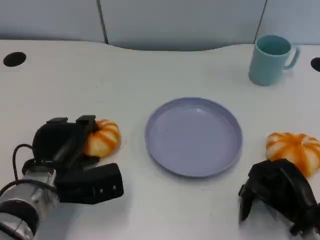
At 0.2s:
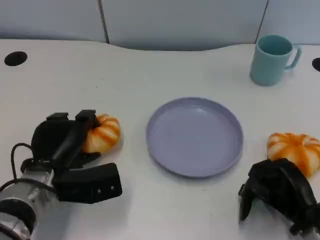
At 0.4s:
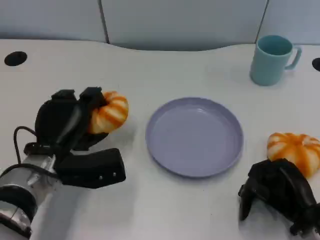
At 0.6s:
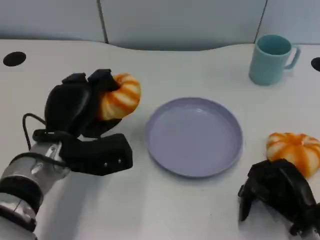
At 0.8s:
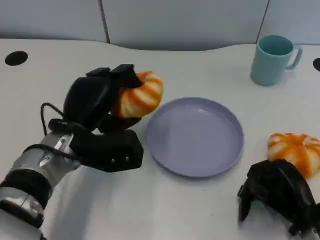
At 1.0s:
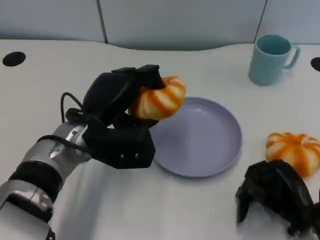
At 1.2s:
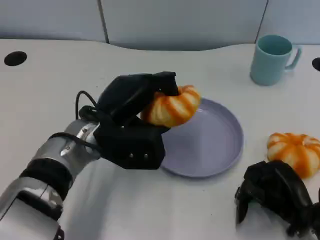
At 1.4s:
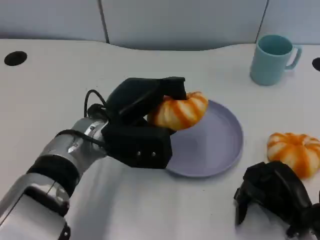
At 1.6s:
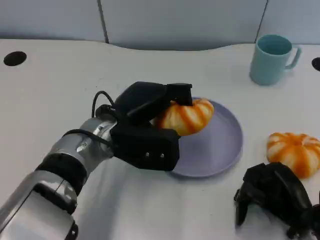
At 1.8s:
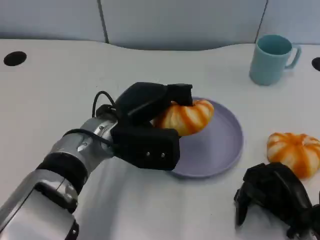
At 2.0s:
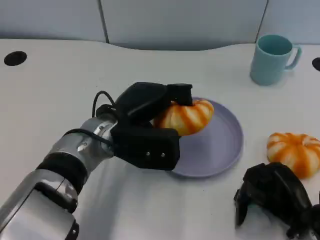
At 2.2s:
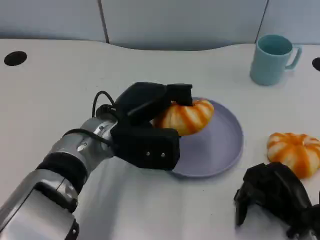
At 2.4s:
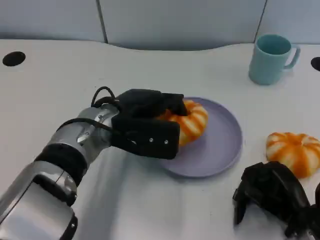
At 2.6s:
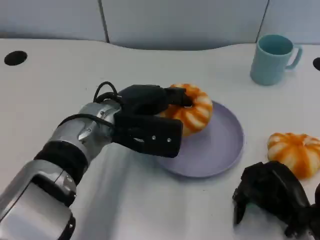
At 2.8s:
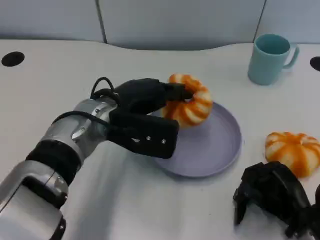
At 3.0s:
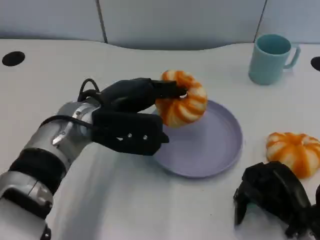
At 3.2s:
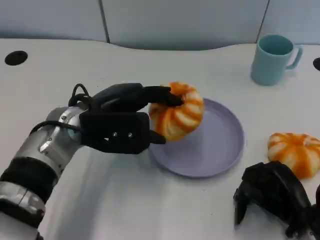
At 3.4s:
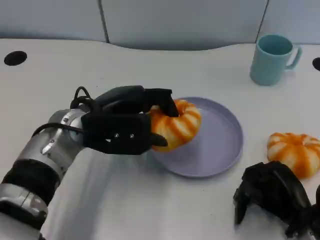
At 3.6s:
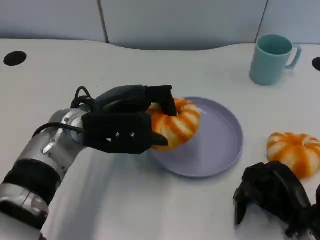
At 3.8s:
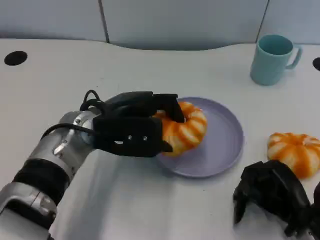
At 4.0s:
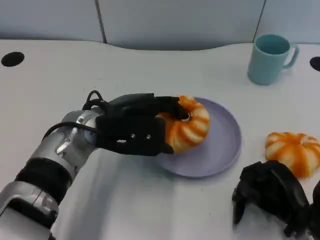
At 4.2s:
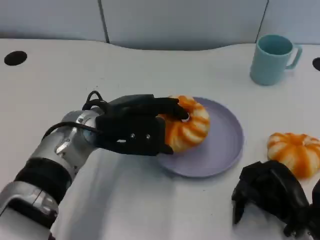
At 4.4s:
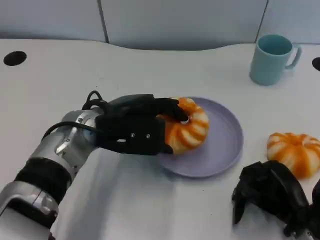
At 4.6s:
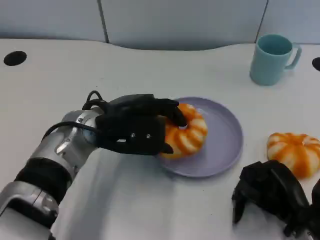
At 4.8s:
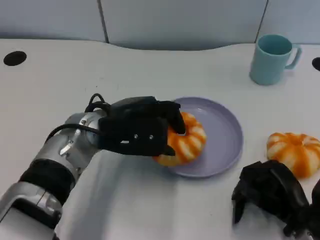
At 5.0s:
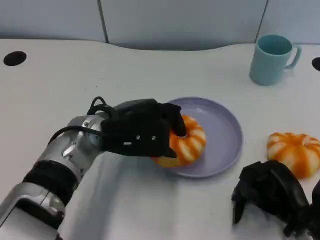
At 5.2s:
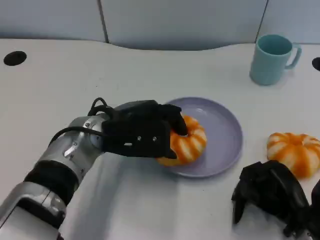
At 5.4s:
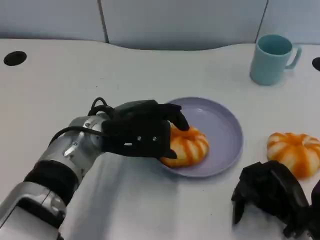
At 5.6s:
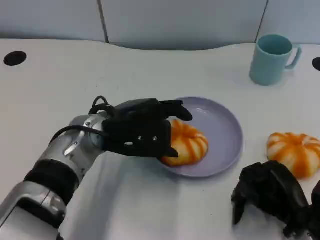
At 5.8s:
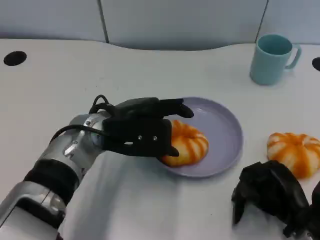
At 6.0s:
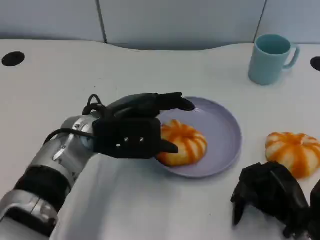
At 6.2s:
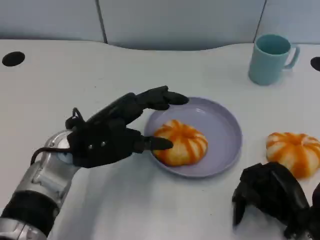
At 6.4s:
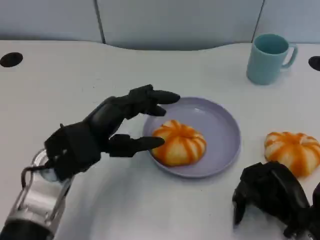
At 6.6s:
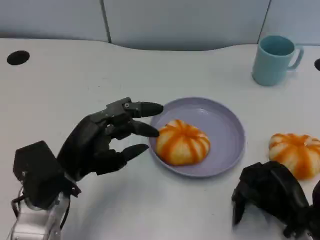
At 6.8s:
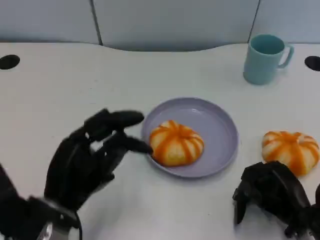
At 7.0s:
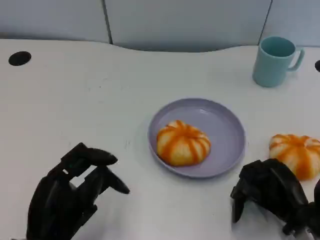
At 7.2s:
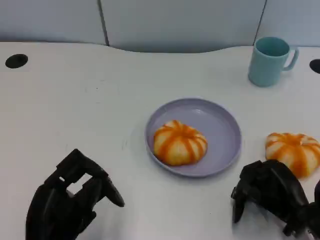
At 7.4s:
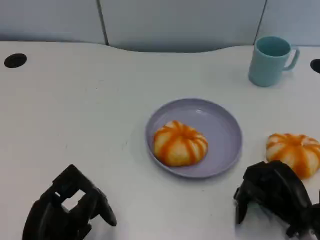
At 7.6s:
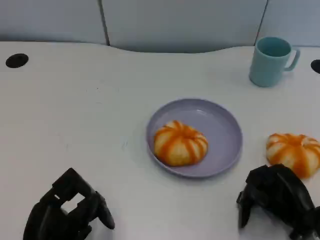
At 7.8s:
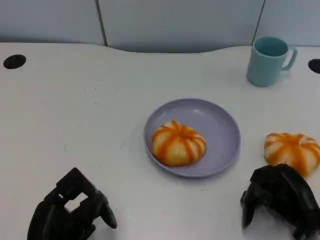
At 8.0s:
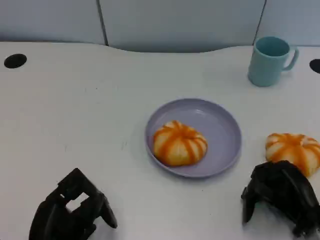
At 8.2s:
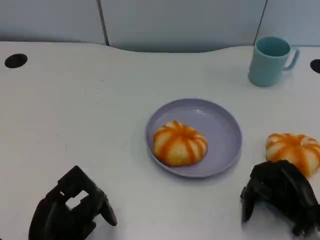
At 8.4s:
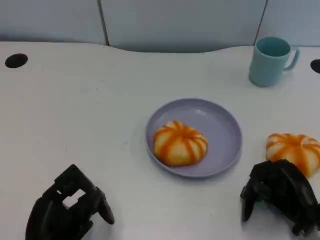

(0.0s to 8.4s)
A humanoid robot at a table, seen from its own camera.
Task of the whole recording: Grasp the bread from the table and place it into the plate.
0.0s - 1.4s: The left hand heads to the right and upward, covering approximately 10 cm.
2.8s - 4.2s: The hands move only a little.
4.2s - 5.6s: The two hands keep their place.
5.6s - 7.0s: The left hand is displaced backward and to the left by some 20 cm.
7.0s - 8.4s: The hands make only small movements.

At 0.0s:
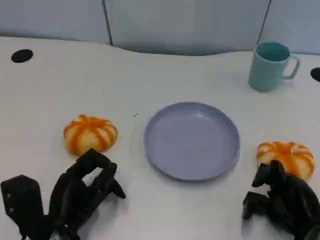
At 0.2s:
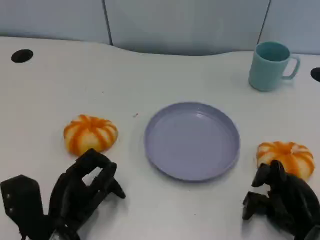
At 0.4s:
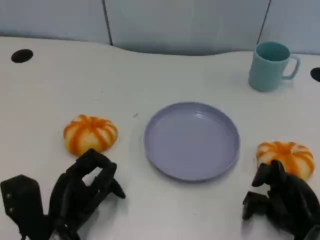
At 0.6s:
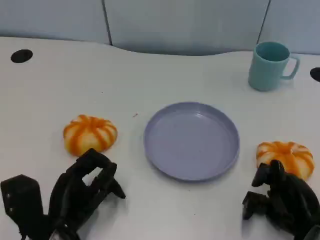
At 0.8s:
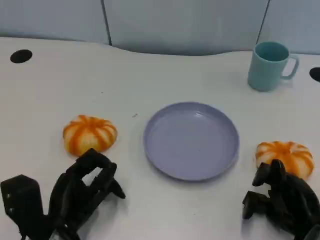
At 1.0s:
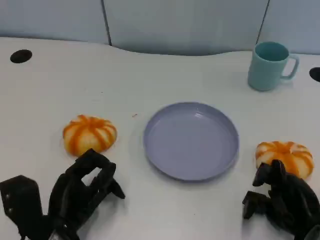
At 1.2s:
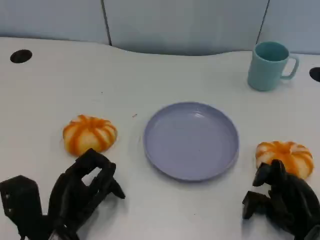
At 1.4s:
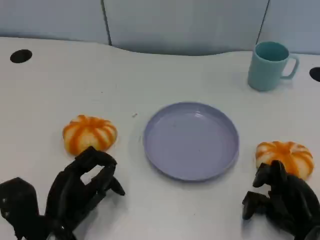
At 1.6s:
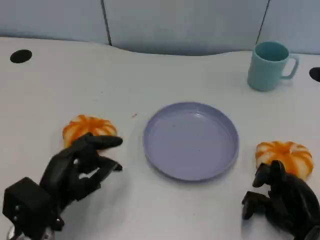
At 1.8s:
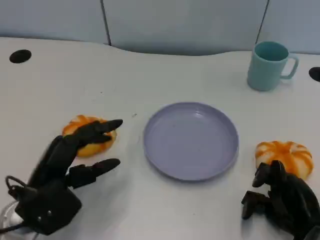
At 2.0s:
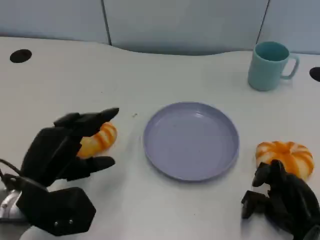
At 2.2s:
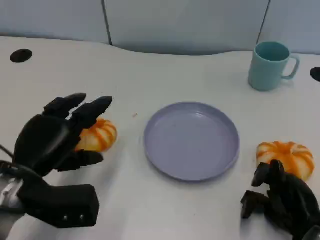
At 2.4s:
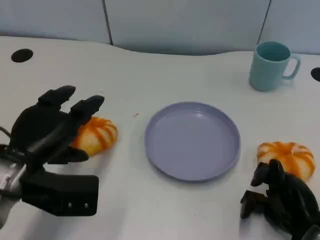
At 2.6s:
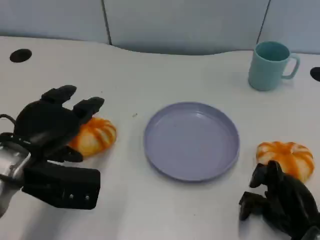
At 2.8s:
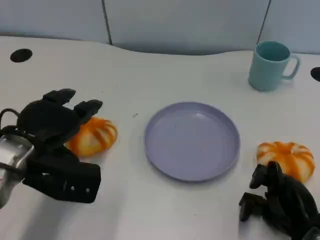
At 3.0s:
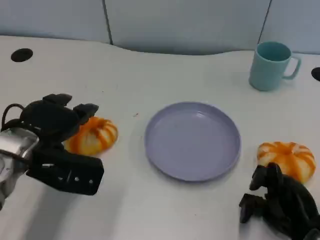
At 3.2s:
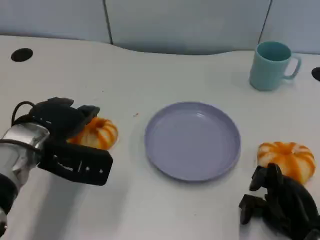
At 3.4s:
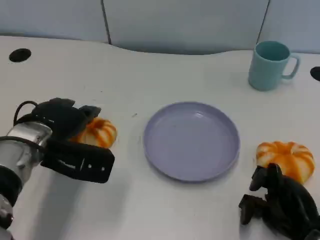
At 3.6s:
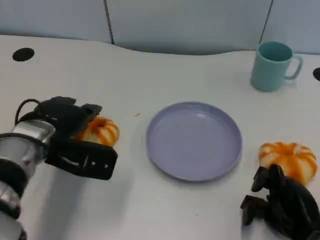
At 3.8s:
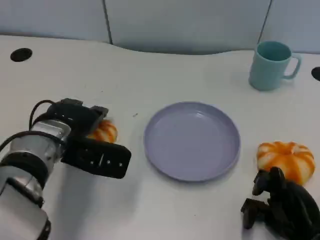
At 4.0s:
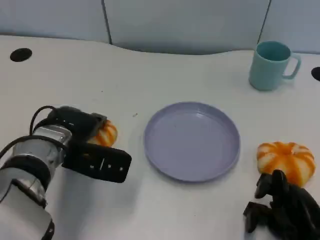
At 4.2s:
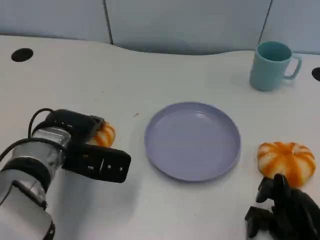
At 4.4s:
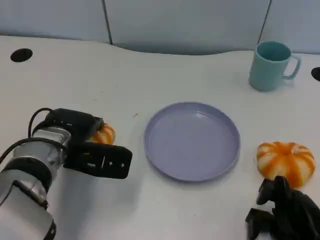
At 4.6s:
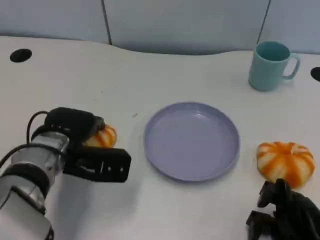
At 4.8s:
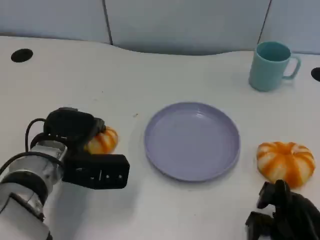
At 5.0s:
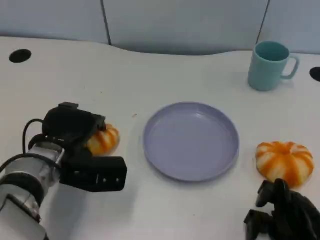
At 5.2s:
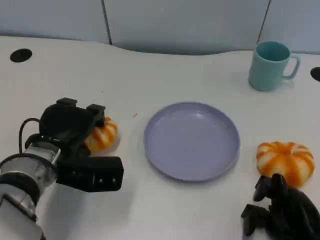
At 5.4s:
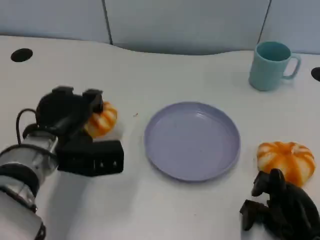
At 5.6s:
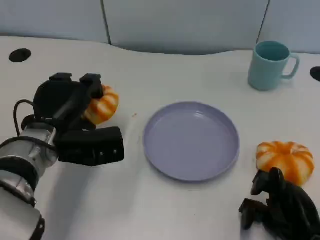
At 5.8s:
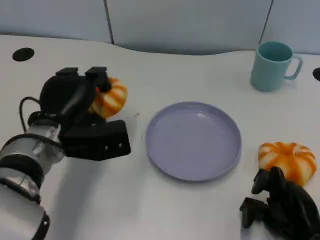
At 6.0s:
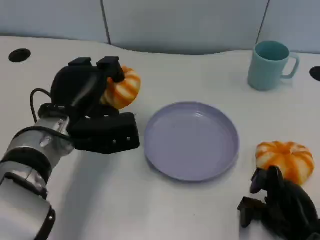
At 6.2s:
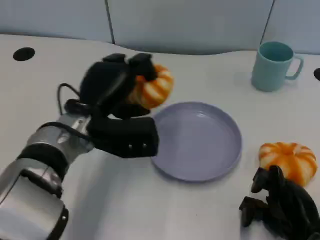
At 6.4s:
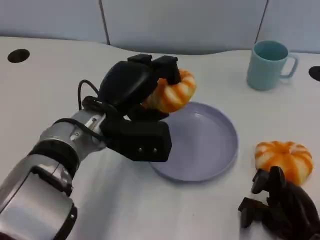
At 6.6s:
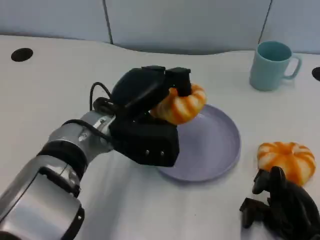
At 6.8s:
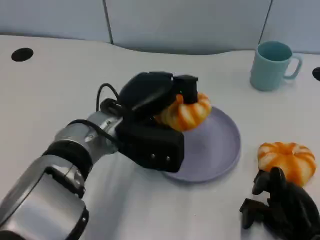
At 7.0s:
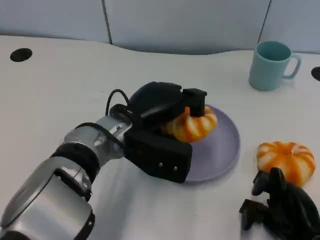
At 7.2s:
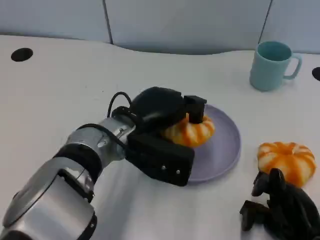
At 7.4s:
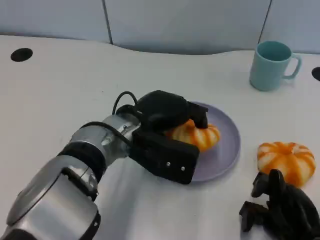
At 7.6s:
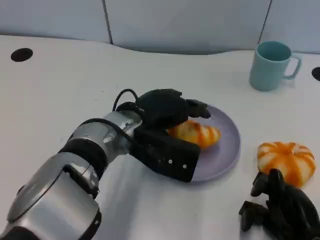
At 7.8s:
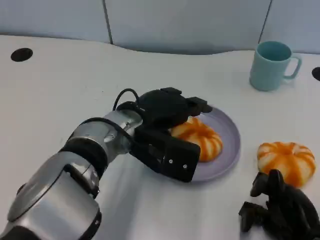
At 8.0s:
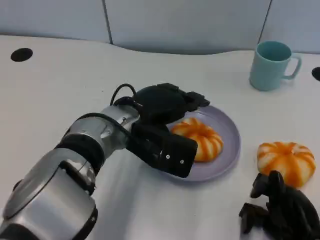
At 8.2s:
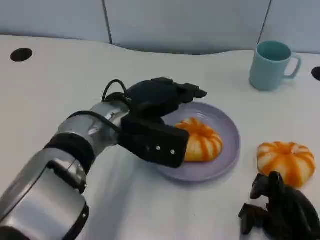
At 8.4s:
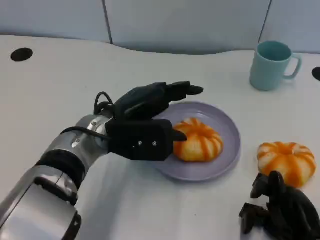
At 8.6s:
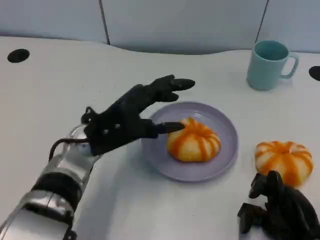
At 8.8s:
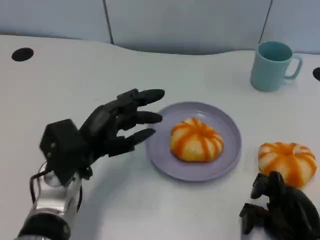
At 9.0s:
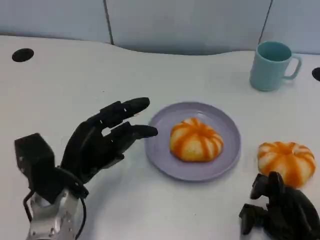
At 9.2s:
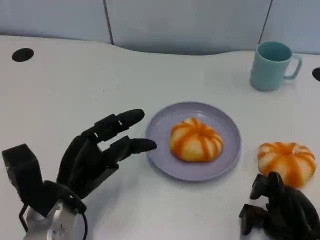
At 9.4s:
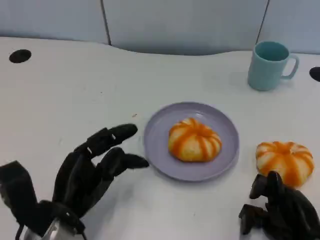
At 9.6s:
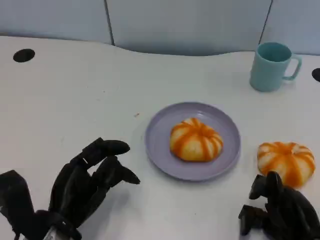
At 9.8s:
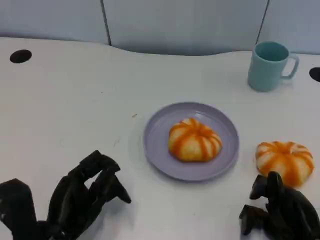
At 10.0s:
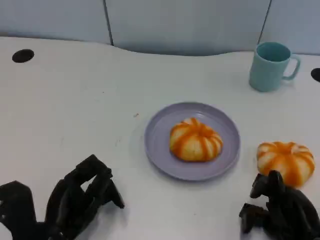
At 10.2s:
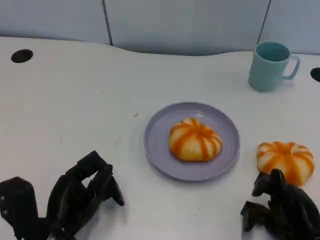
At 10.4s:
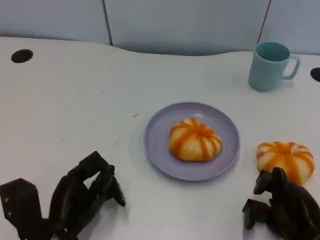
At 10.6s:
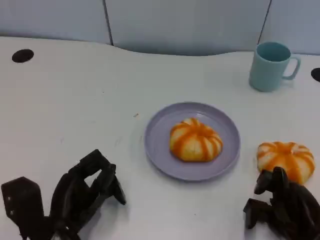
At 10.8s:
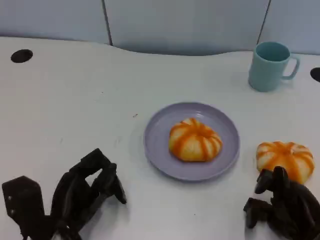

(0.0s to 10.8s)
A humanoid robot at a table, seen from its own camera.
Task of the whole recording: Grasp the bread from the table and place it into the plate.
1.6s - 3.0s: The left hand goes about 10 cm forward and upward.
3.0s - 4.6s: The left hand shifts by approximately 5 cm.
4.6s - 6.2s: The left hand heads to the right, covering about 5 cm.
6.2s - 7.8s: The left hand heads to the right, covering about 5 cm.
7.8s - 9.2s: The left hand goes roughly 15 cm to the left, backward and downward.
9.2s - 10.8s: The left hand ends up roughly 5 cm from where it was.

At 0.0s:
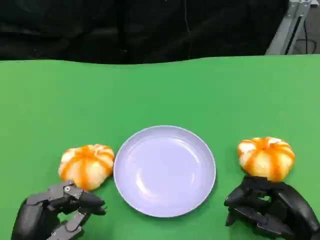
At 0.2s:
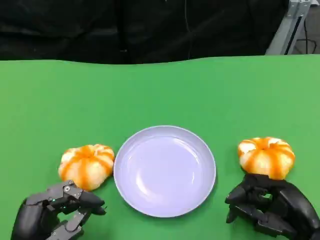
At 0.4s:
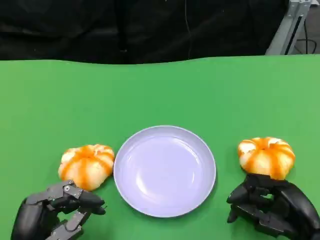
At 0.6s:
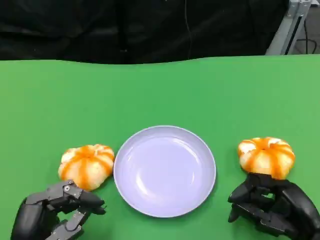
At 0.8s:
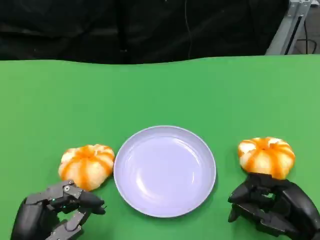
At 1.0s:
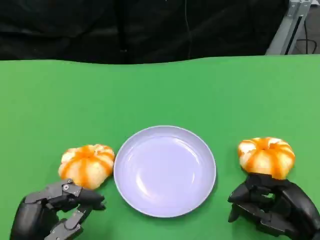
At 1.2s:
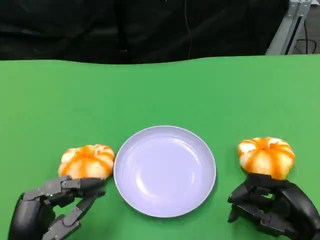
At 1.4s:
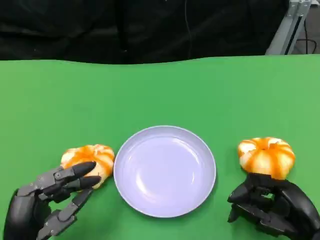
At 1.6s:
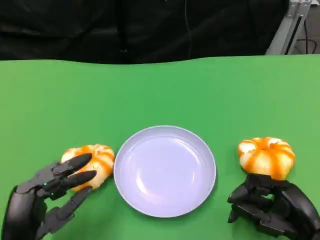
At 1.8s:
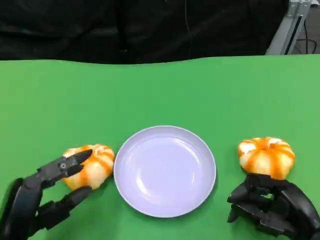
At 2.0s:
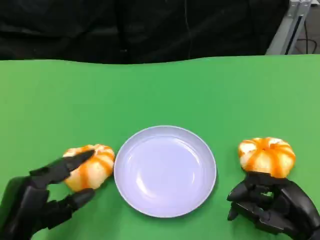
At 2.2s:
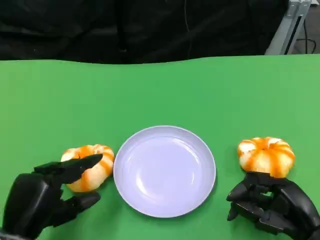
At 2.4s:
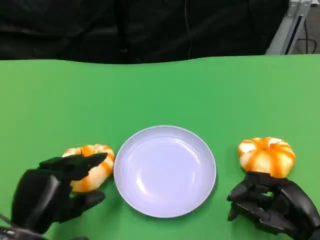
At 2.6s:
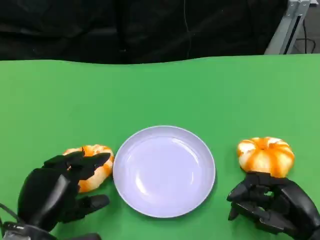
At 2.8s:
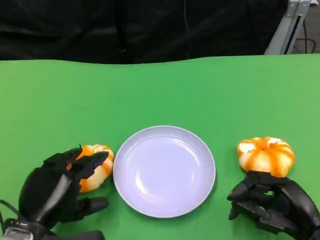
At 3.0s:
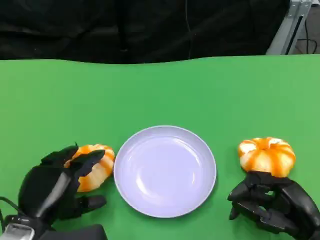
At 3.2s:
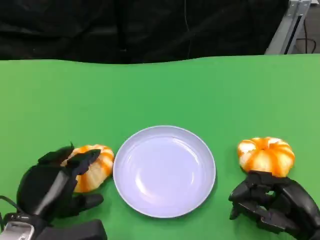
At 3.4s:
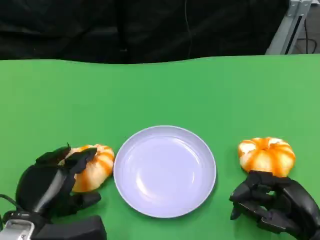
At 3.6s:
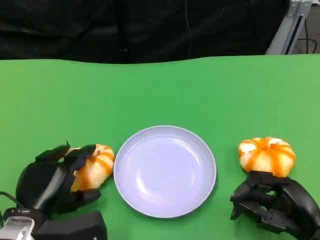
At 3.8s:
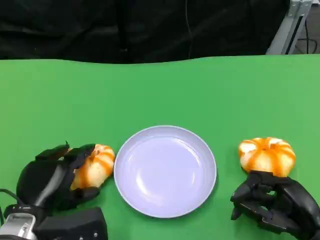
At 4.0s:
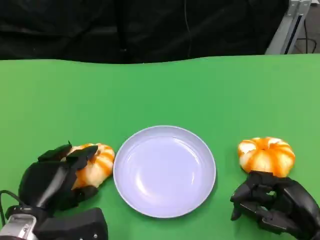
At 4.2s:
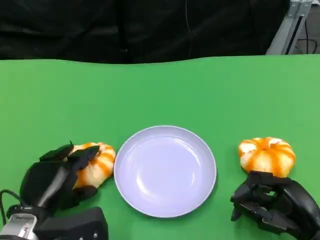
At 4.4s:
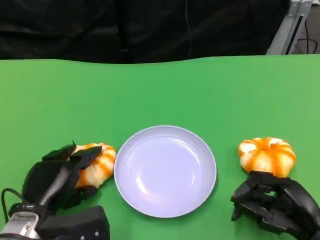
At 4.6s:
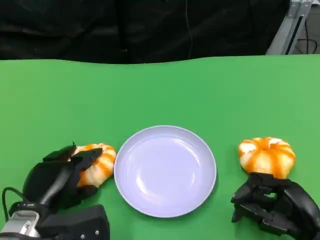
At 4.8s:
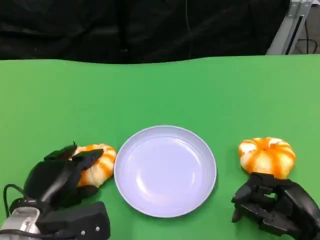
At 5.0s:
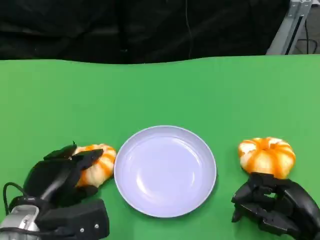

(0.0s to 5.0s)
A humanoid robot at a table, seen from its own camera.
Task of the whole recording: Grasp the bread from the table and place it into the plate.
0.0s - 1.6s: The hands make only small movements.
1.6s - 3.4s: The left hand moves forward, approximately 5 cm.
3.4s - 5.0s: The hands stay close to where they were, moving slightly.
